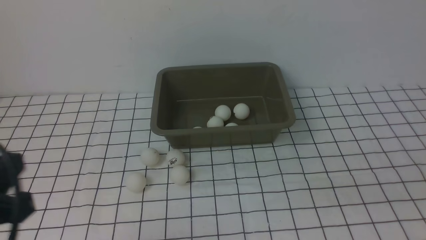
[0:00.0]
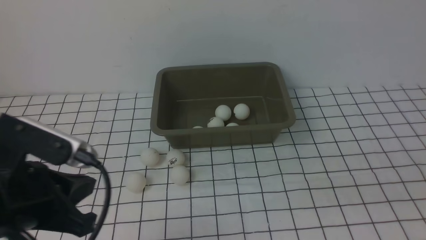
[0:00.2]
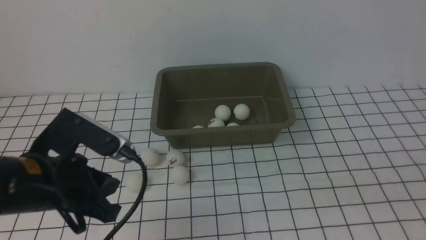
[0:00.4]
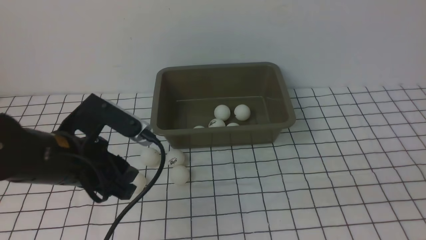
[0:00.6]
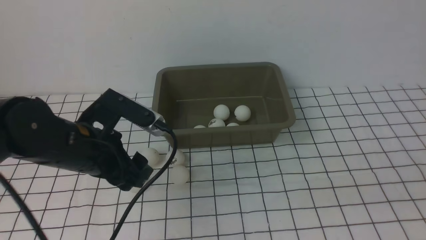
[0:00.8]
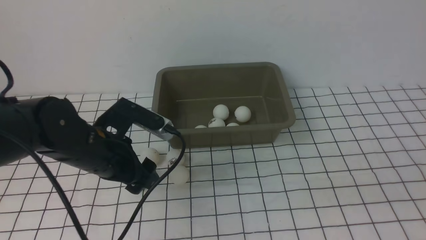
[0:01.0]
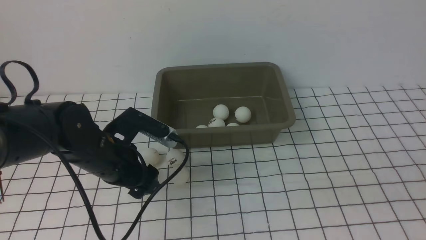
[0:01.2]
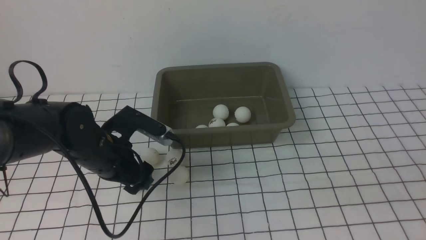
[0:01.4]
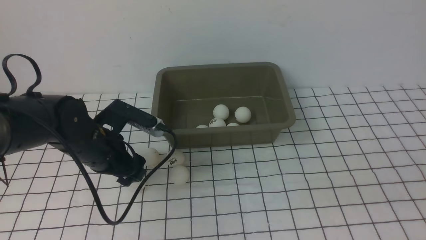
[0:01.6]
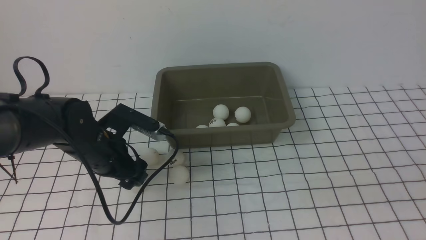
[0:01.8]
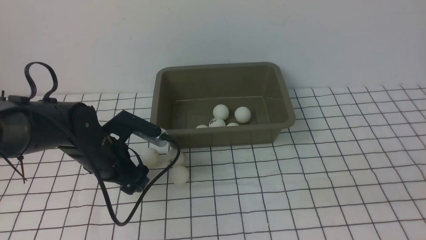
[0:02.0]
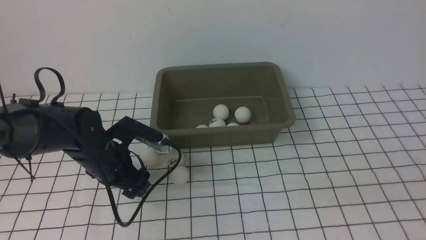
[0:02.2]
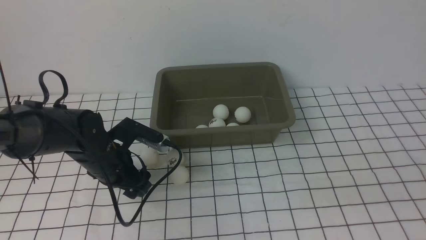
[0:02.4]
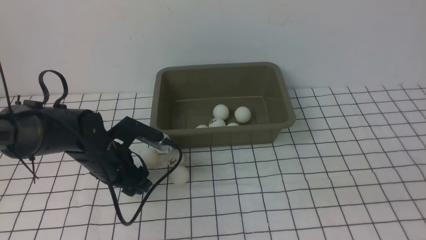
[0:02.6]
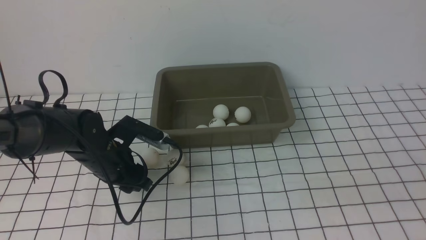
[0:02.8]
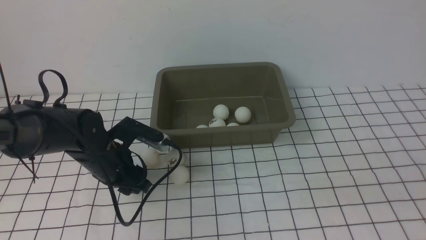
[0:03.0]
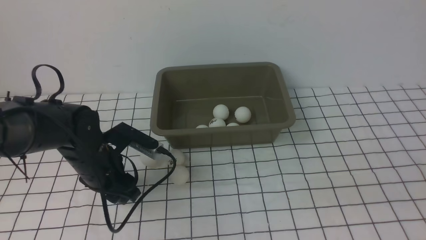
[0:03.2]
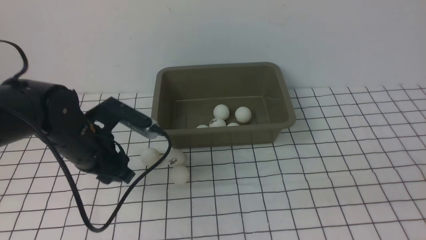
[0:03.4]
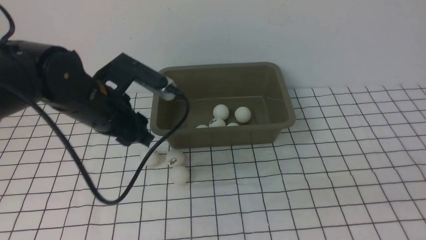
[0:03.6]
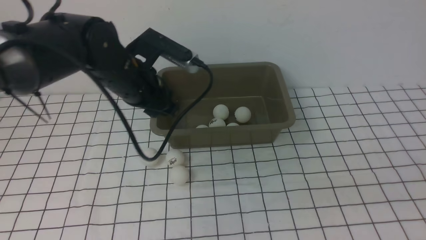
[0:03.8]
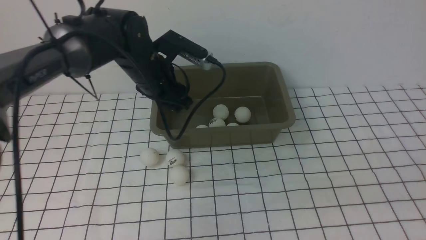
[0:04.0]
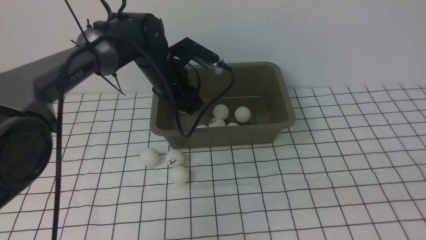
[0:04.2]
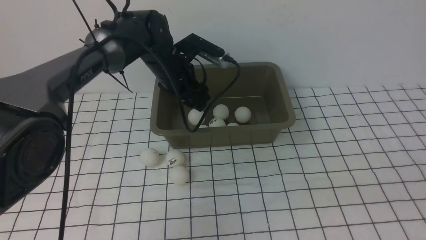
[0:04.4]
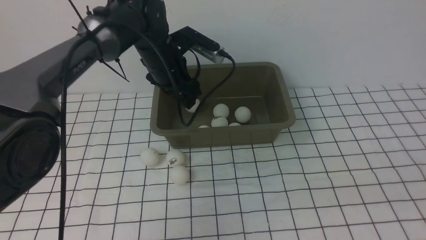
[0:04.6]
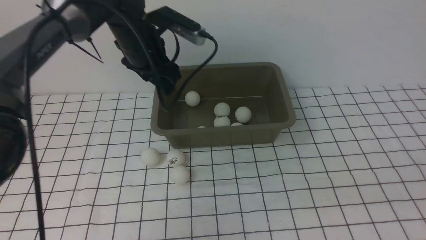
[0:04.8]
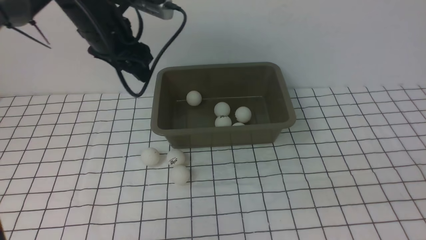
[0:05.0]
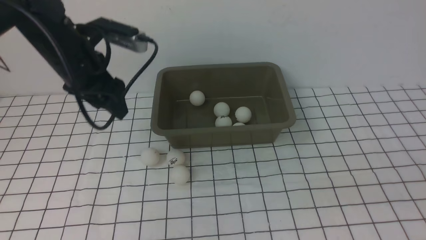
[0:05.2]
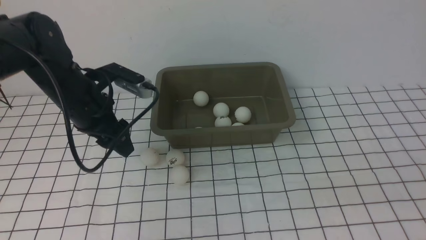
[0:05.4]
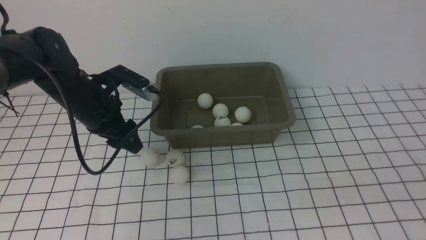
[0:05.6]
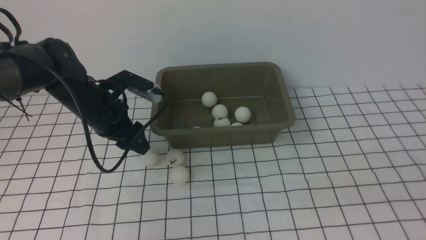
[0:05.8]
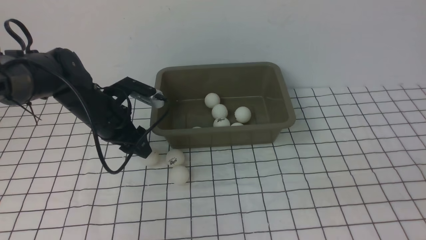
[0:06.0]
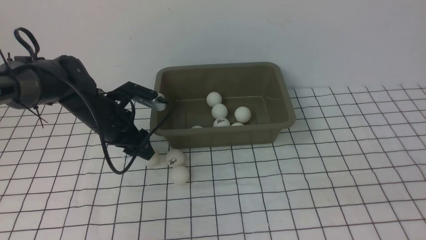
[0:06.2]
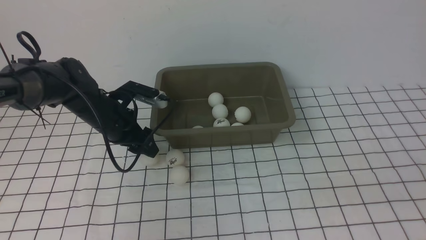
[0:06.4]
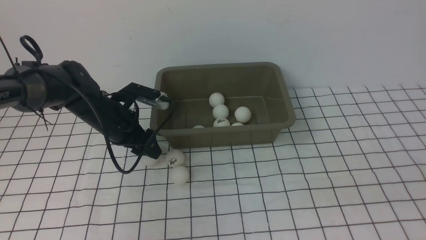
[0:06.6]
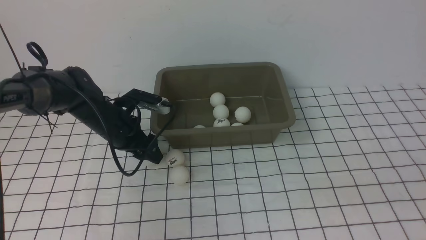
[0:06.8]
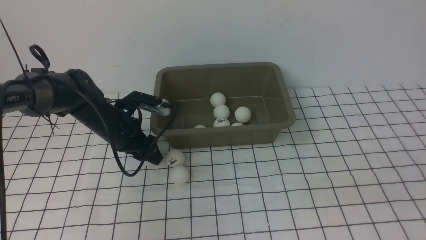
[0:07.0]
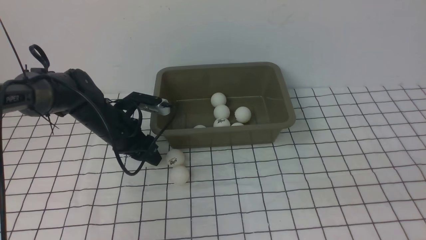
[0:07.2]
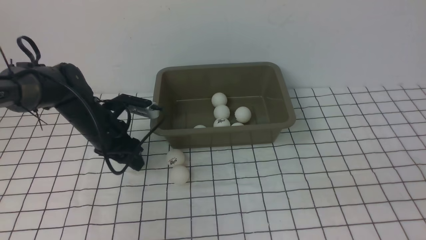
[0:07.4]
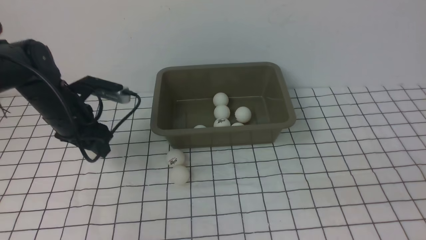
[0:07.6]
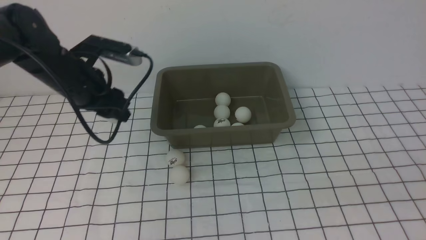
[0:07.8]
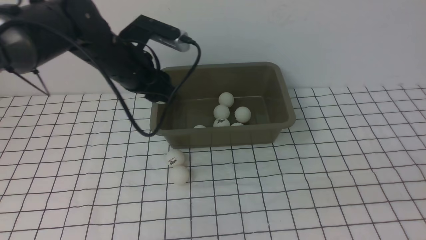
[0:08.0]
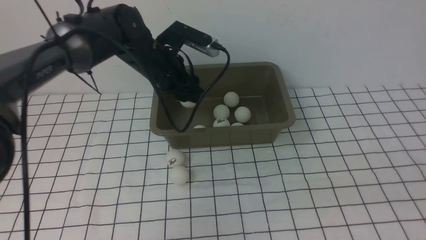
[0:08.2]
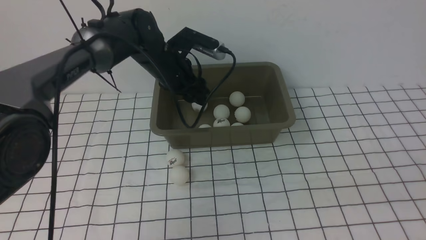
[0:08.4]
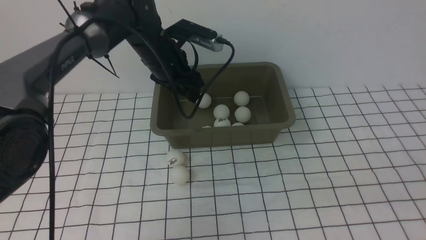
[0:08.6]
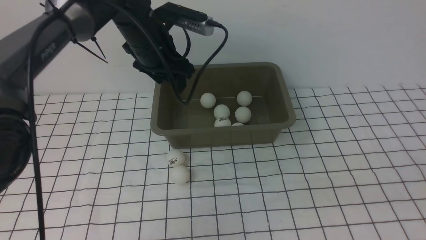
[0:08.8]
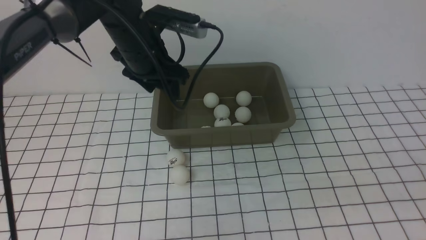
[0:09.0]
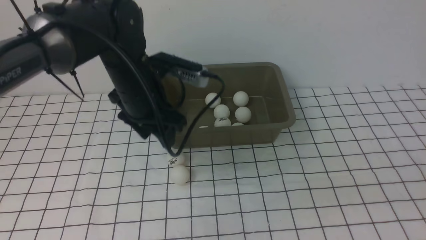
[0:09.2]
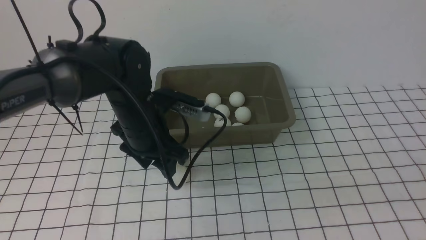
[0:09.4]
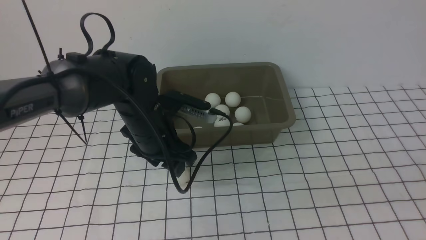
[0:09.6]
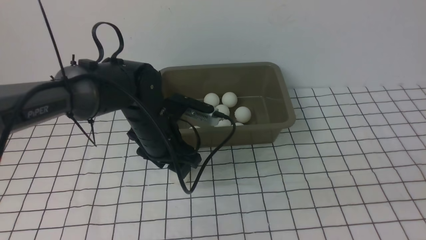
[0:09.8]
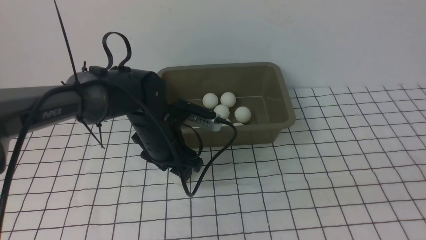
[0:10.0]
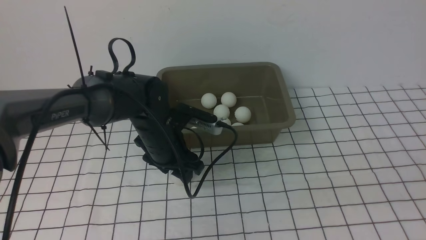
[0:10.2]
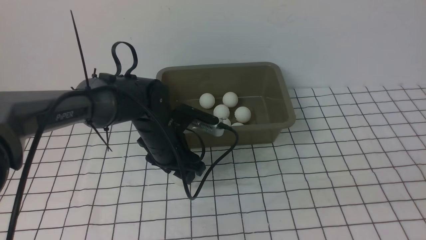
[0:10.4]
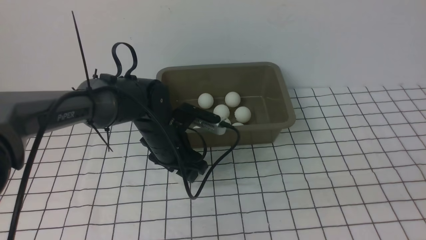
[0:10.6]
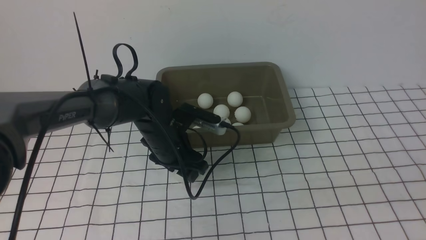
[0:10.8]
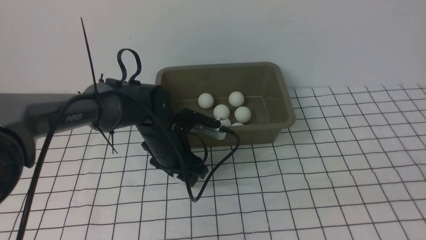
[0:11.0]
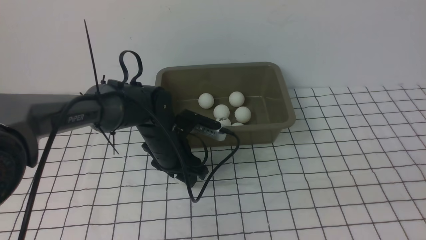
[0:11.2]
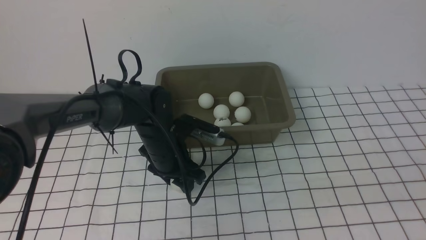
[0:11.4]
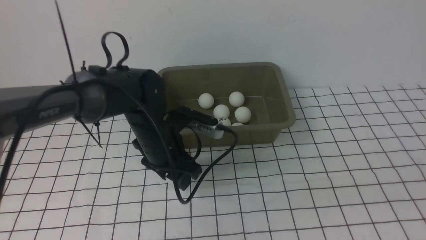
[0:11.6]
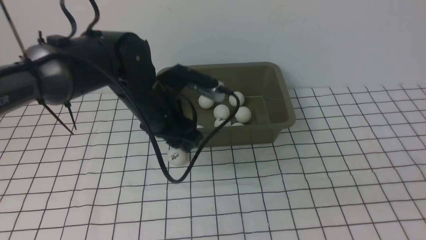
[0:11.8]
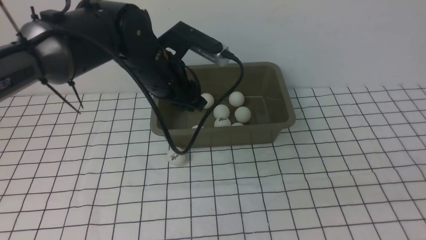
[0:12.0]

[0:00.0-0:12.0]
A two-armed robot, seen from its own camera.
Step, 0:00.0 to 0:03.4: use the left arm to clamp the table tennis ball closest to it.
Step, 0:03.6 to 0:04.6: use the left arm to put the table tennis ball into the box.
Step, 0:04.8 to 0:07.8: use the left arm to clamp the table tennis ball closest to it.
Step, 0:08.0 to 0:08.6: use the left arm to put the table tennis ball into the box.
Step, 0:08.8 to 0:11.8: use the left arm to clamp the table tennis ball closest to it.
0:00.0 to 0:01.6: The left gripper moves forward and downward, roughly 25 cm, and opens its fingers.
0:01.6 to 0:03.0: The left gripper closes its fingers.
0:03.0 to 0:04.4: The left gripper is displaced forward, to the right and upward by roughly 20 cm.
0:04.4 to 0:06.0: The left gripper travels to the left, backward and downward by some 15 cm.
0:06.0 to 0:07.6: The grippers make only small movements.
0:07.6 to 0:09.0: The left gripper travels to the right and upward by some 15 cm.
0:09.0 to 0:10.4: The left gripper shifts approximately 15 cm downward.
0:10.4 to 0:12.0: The left gripper travels upward and forward by about 10 cm.

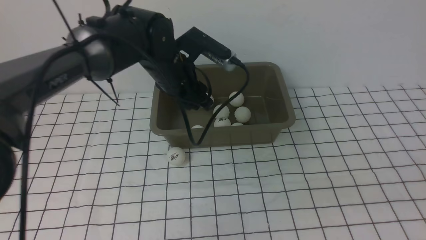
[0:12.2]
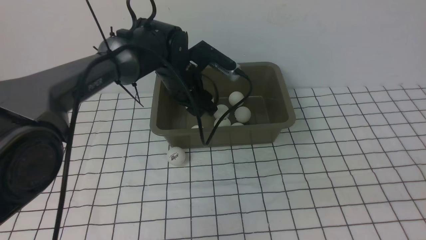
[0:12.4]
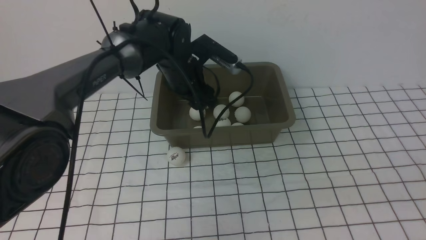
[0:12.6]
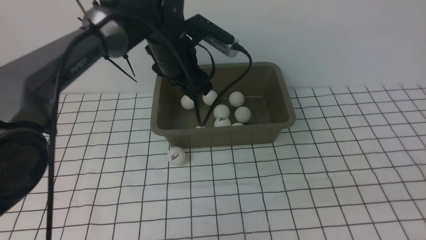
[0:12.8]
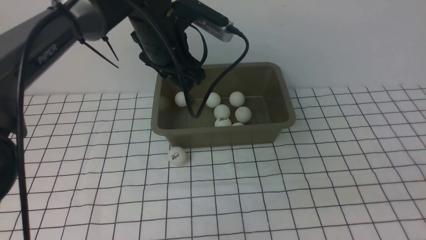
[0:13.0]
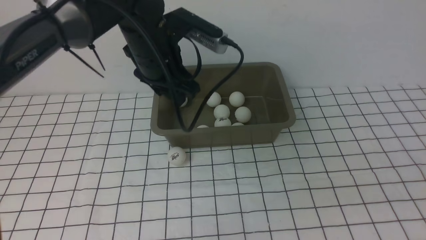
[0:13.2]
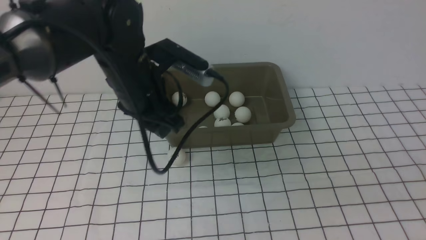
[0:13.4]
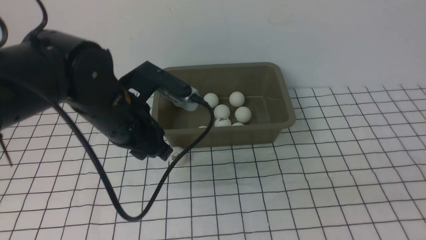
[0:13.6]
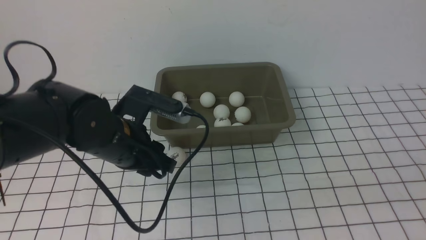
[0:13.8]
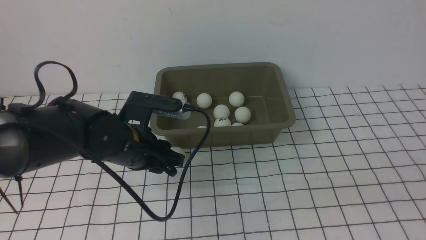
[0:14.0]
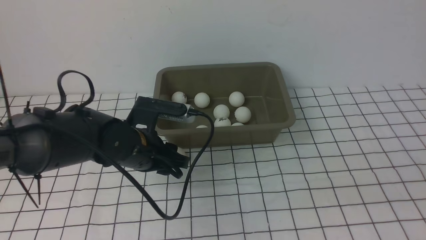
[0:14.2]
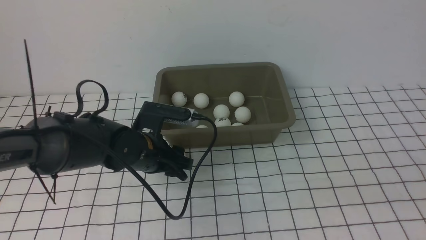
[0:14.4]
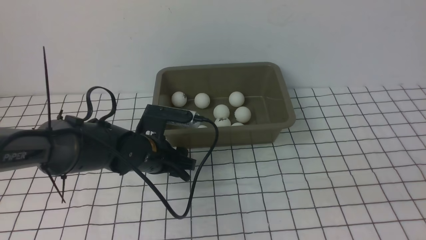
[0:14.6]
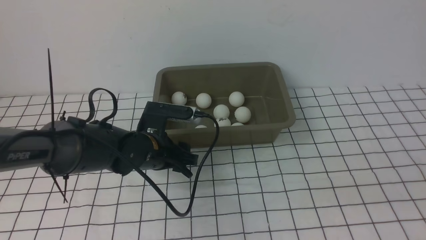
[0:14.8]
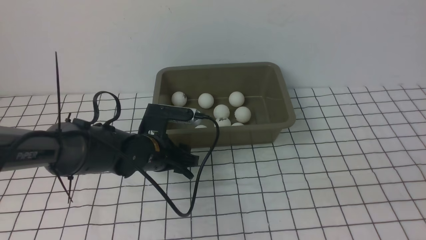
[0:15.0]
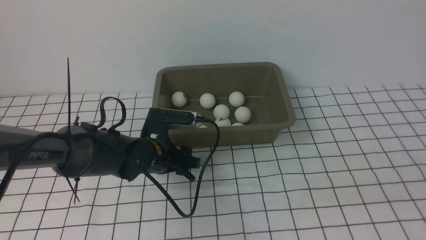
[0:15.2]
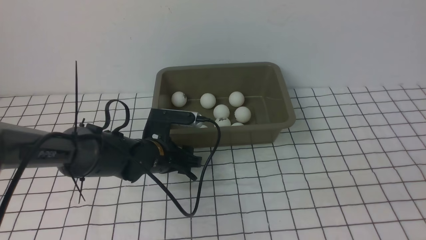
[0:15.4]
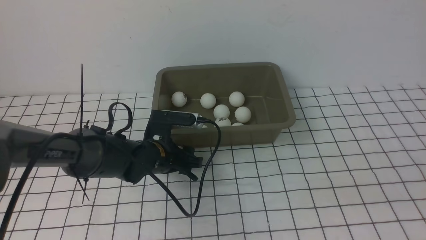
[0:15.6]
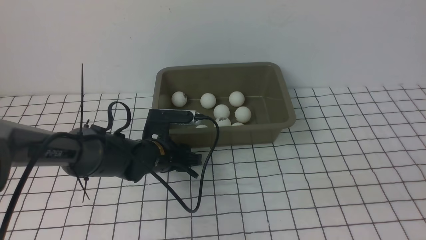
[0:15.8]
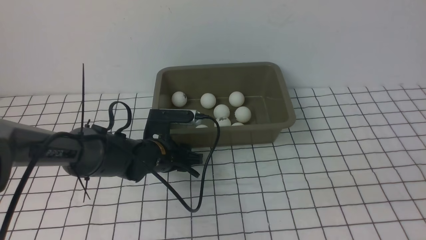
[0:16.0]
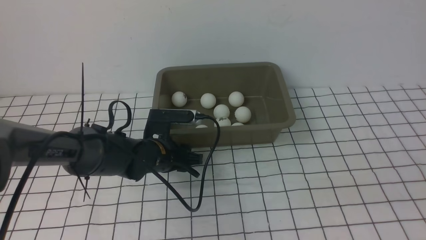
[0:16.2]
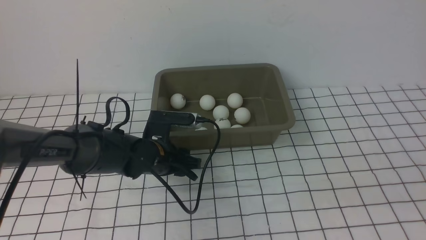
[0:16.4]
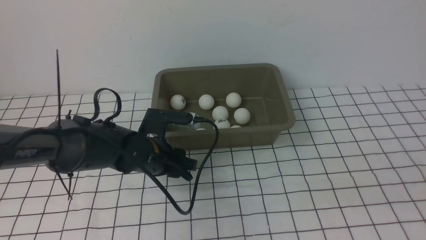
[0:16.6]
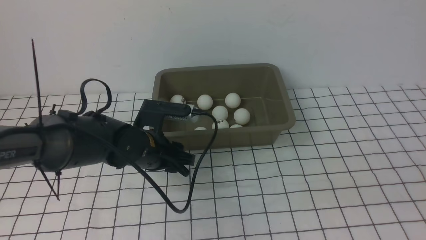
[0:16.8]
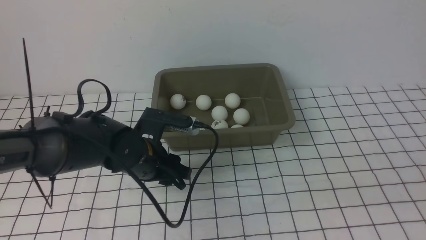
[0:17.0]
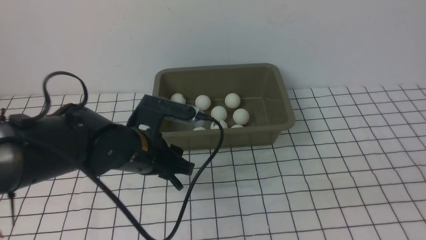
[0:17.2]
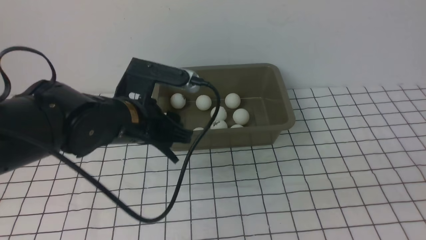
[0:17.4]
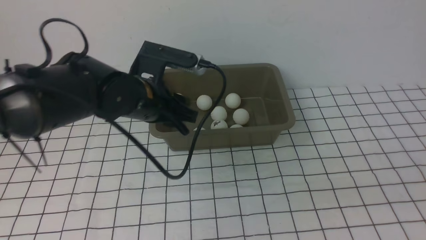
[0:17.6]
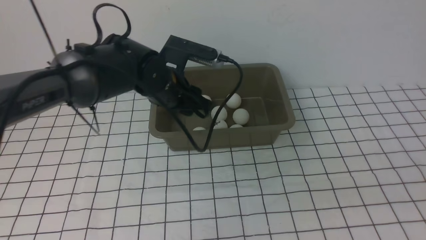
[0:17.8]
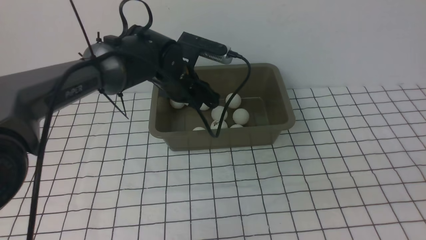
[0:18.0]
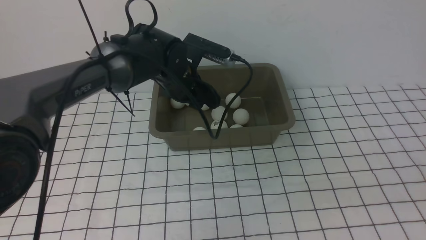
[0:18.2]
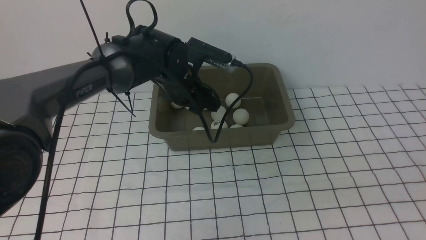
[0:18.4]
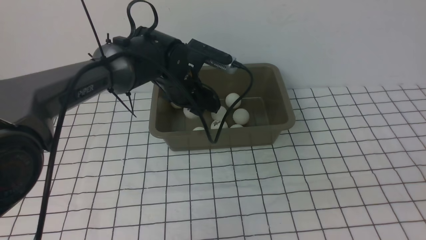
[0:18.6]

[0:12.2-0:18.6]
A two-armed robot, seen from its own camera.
Step, 0:12.2 to 0:12.6: use the left arm to put the table tennis ball into the box.
Step, 0:12.8 to 0:16.2: use the left arm to clamp the table tennis ball closest to it.
0:12.2 to 0:13.8: The left gripper shifts about 15 cm backward, downward and to the left.
0:13.8 to 0:15.4: The left gripper heads downward, covering some 5 cm.
0:15.4 to 0:17.0: The left gripper shifts approximately 10 cm upward.
0:17.0 to 0:18.6: The left gripper shifts roughly 15 cm upward and forward, and closes up.
